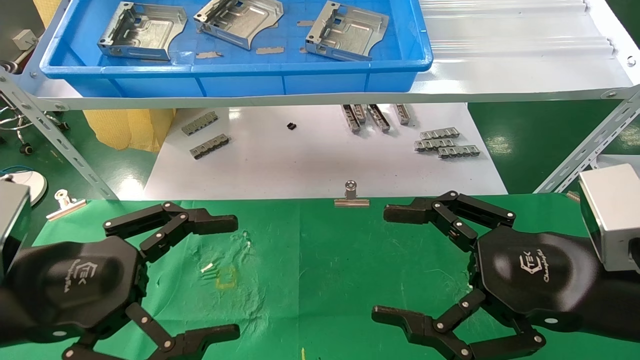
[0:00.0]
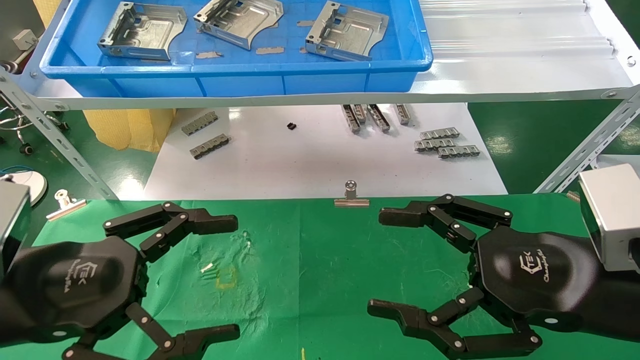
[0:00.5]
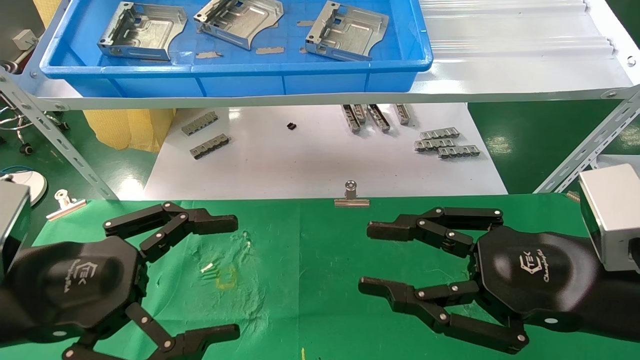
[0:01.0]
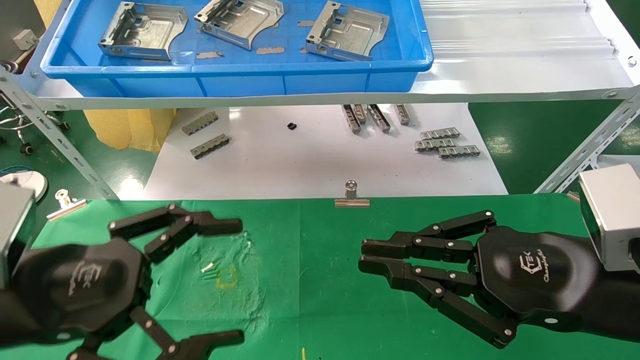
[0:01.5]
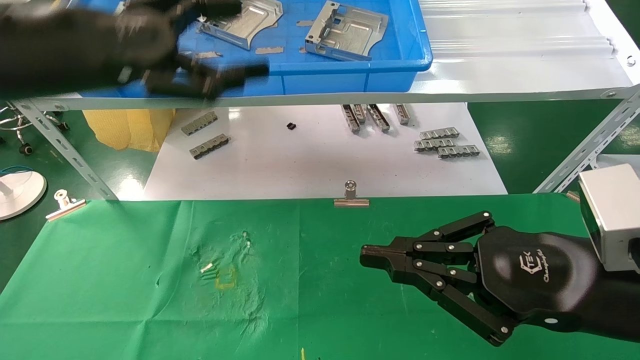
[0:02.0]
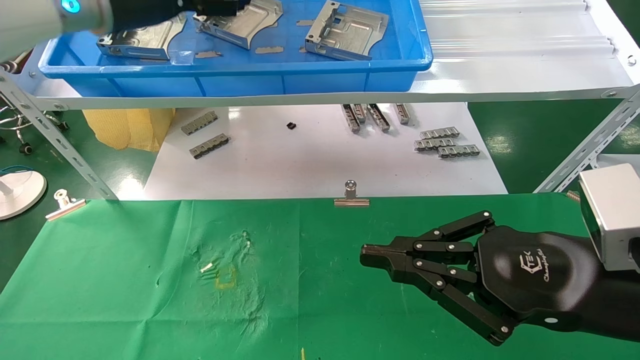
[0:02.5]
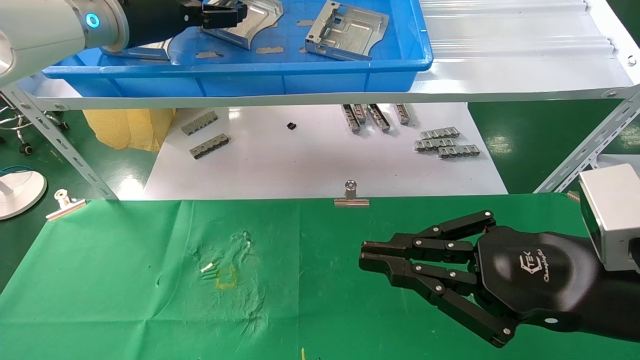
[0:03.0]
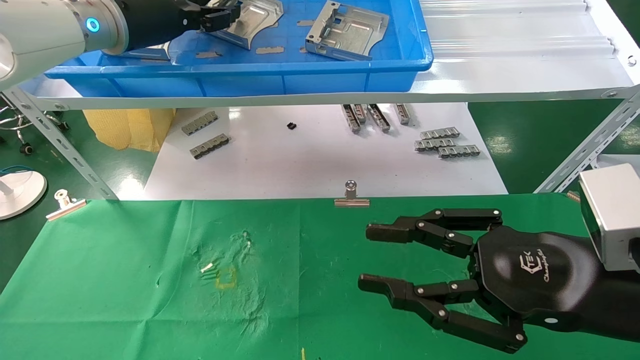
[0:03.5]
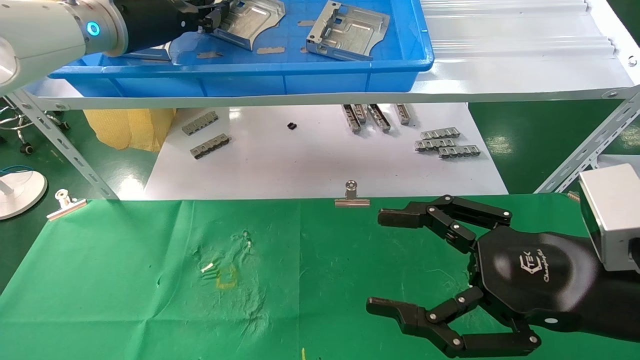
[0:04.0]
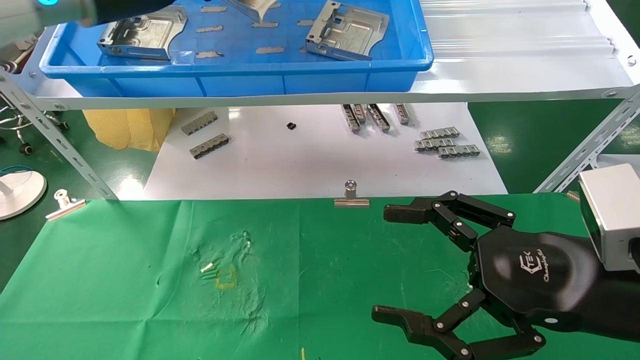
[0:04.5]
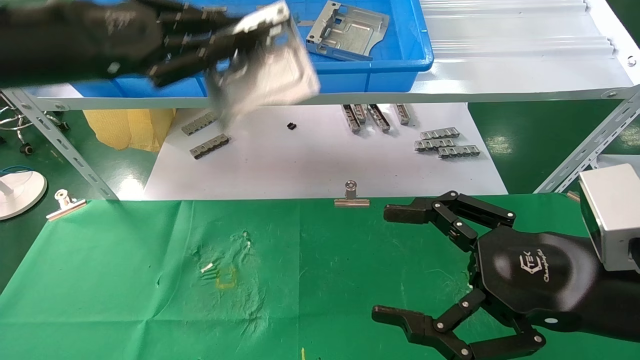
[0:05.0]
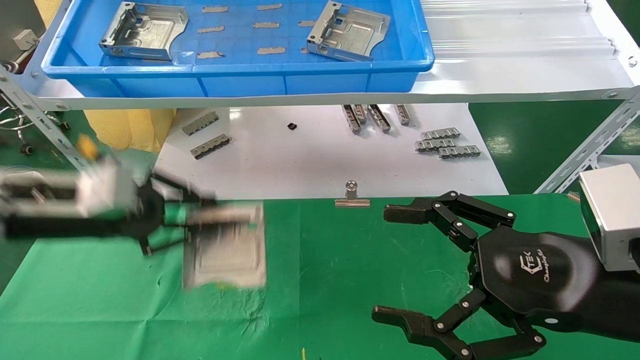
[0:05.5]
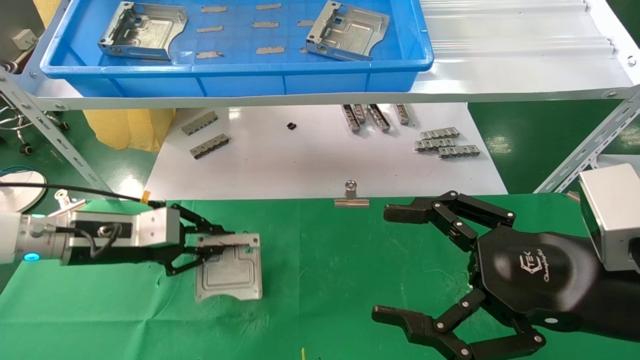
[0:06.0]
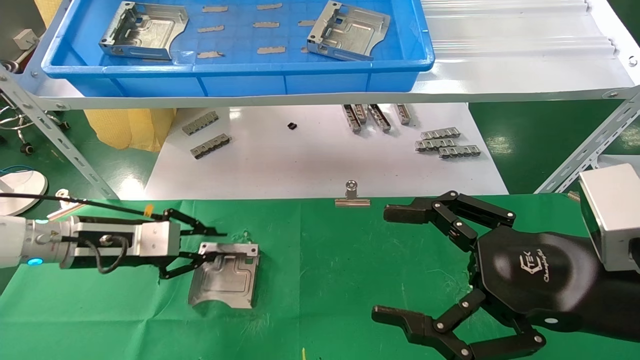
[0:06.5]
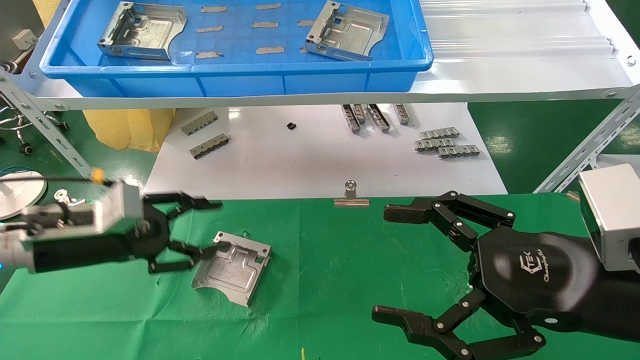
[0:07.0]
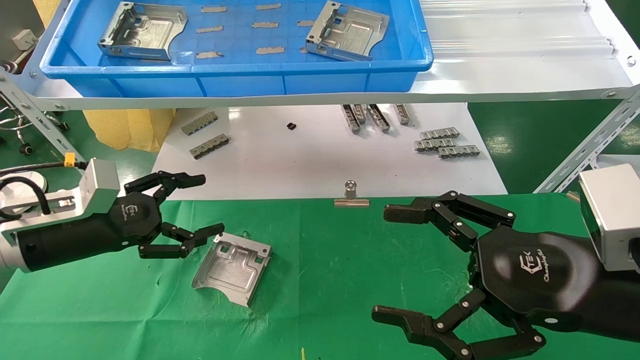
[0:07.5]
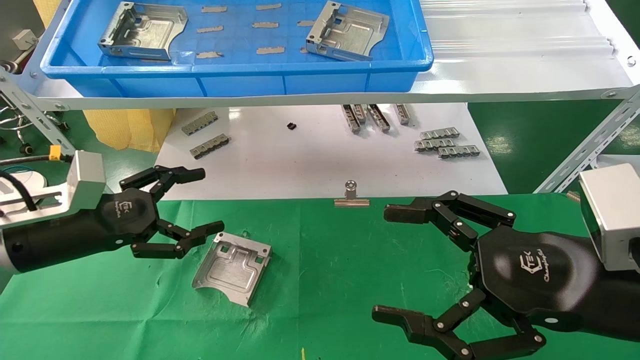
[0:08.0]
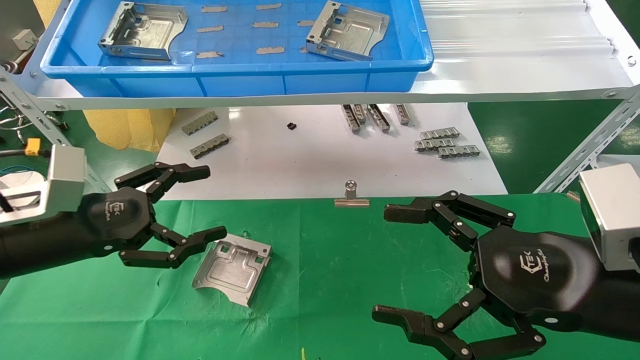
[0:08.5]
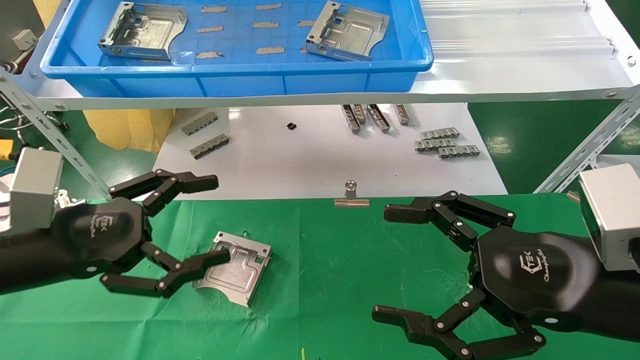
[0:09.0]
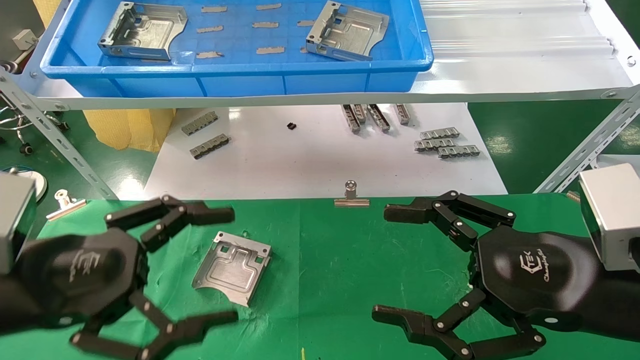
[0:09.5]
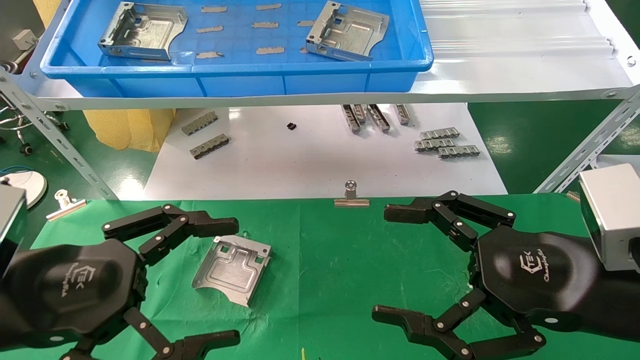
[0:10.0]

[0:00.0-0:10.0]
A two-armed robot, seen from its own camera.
Task of the whole recording: use the mechanical arm to pick up the parts and place them on the table.
Step, 0:02.0 to 0:03.5: Pick up the hard drive bracket from the feeding area.
Step, 0:04.0 to 0:07.0: Place the hard drive bracket into the box.
0:00.0 to 0:02.0: The right gripper closes its fingers. Meanwhile the left gripper heads upward and forward, covering roughly 20 cm.
0:02.0 to 0:04.0: The left gripper is displaced forward by some 15 cm, and closes its fingers. Meanwhile the right gripper opens up.
0:04.0 to 0:06.0: The left gripper shifts roughly 25 cm downward.
0:06.0 to 0:08.0: The left gripper goes roughly 5 cm backward, and opens.
0:08.0 to 0:10.0: The left gripper heads backward and to the right, covering approximately 15 cm.

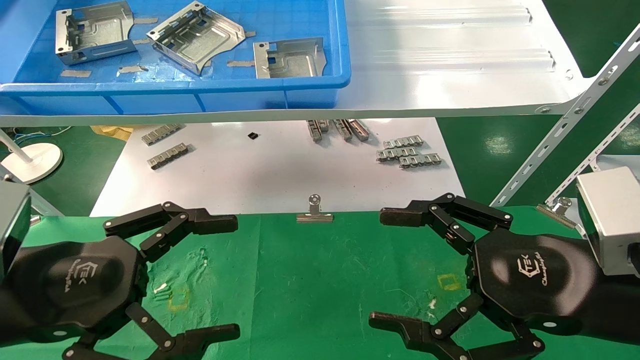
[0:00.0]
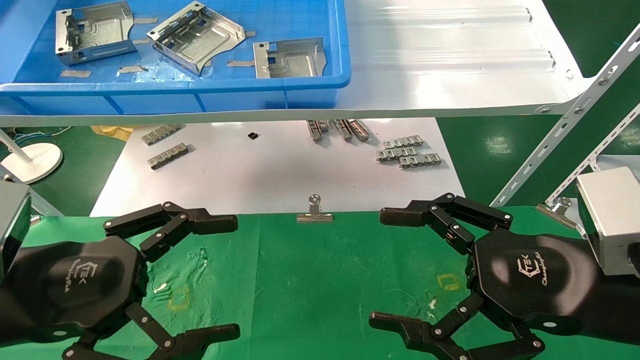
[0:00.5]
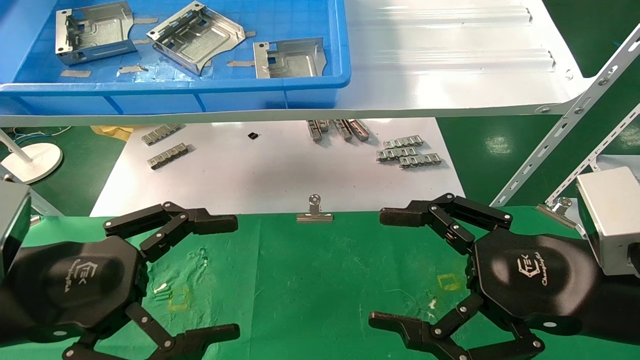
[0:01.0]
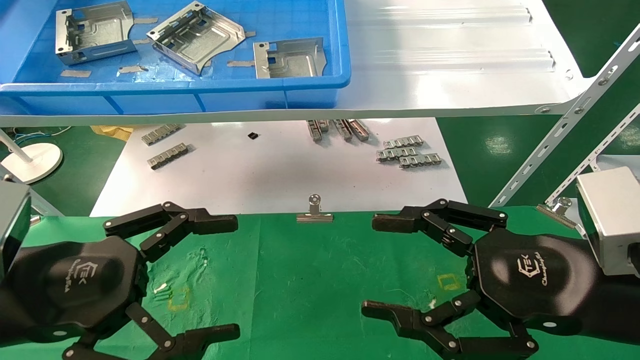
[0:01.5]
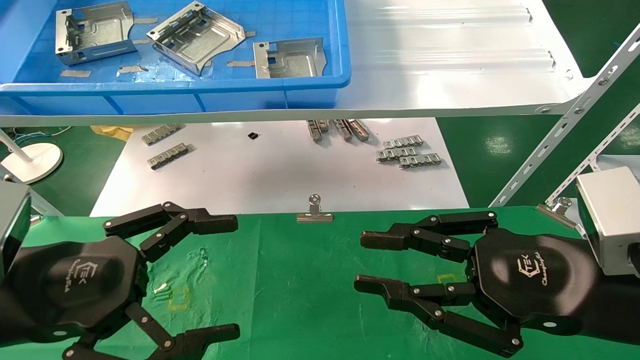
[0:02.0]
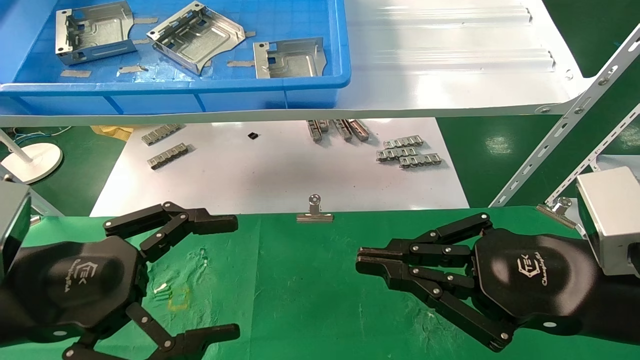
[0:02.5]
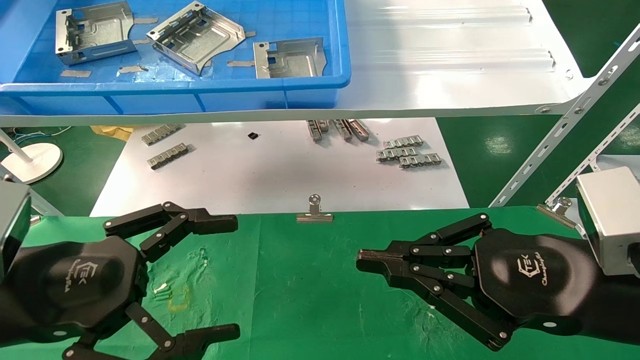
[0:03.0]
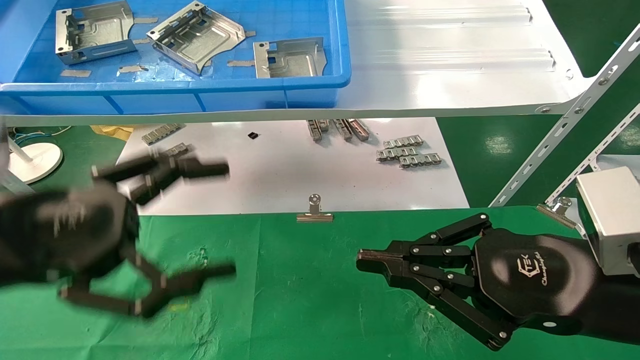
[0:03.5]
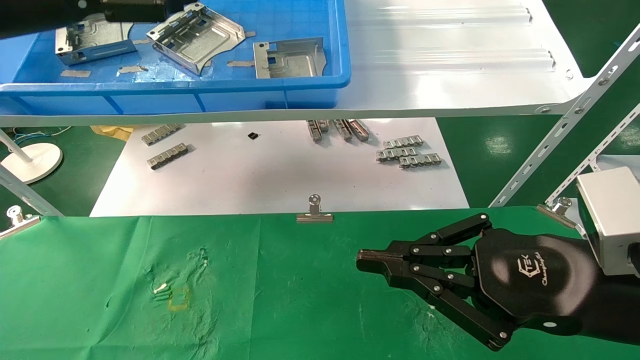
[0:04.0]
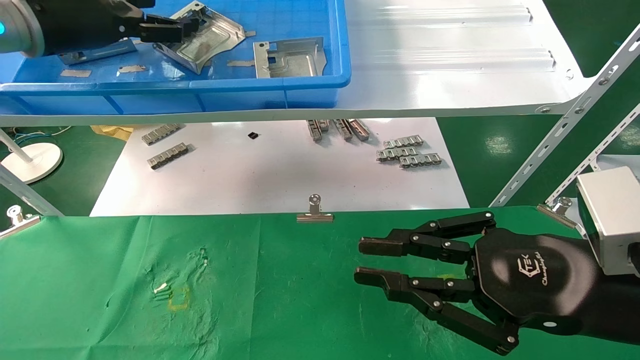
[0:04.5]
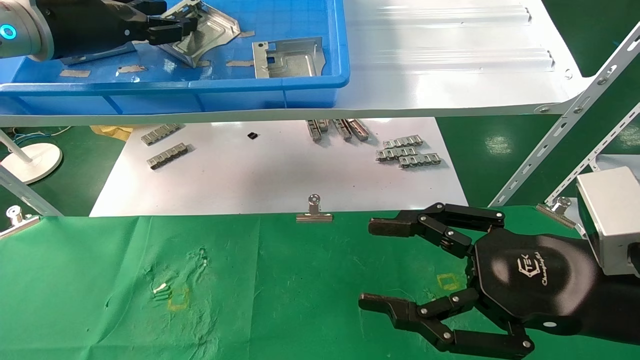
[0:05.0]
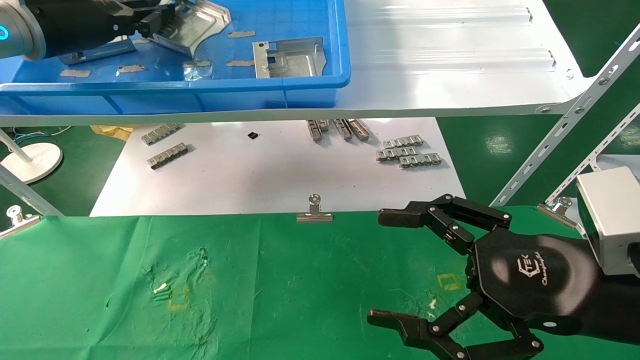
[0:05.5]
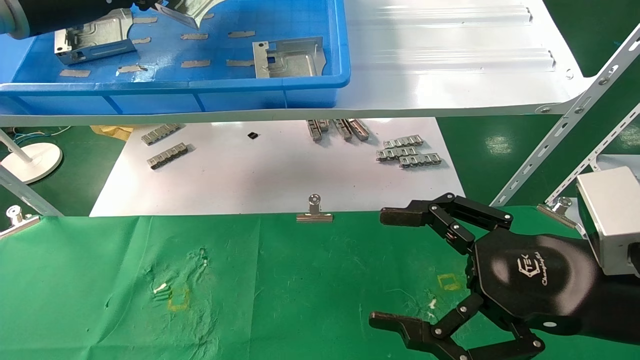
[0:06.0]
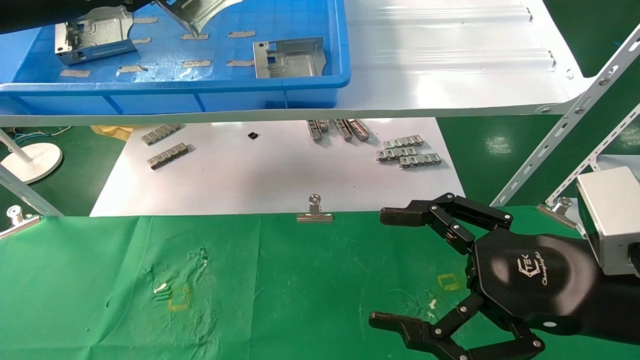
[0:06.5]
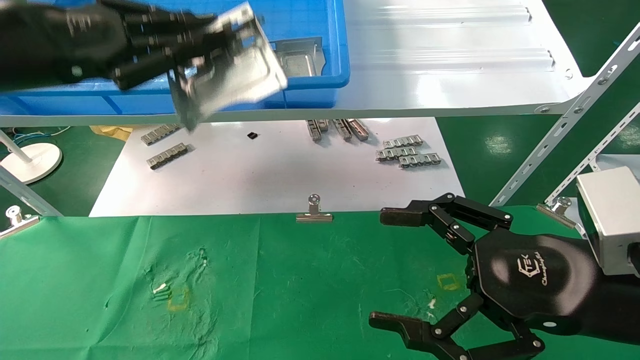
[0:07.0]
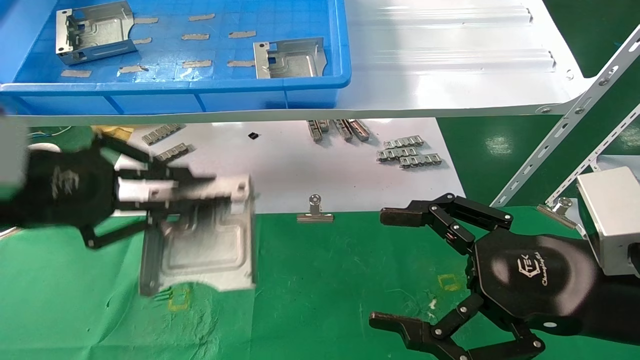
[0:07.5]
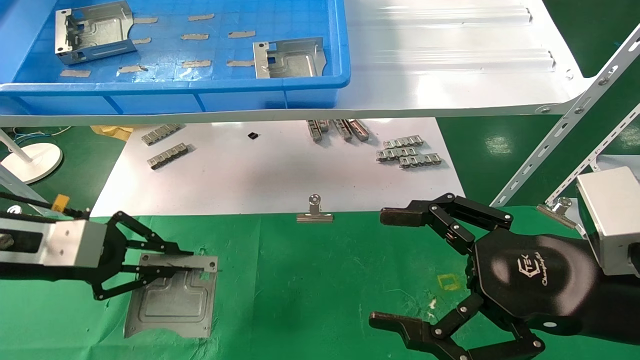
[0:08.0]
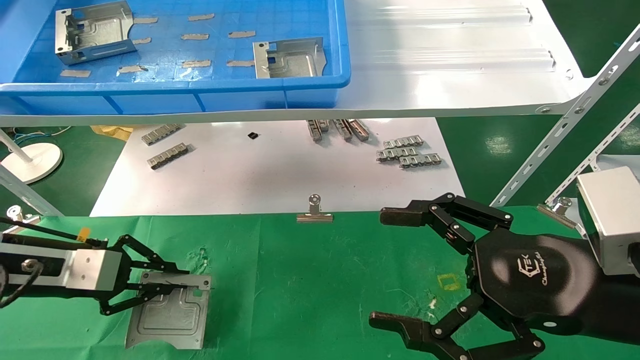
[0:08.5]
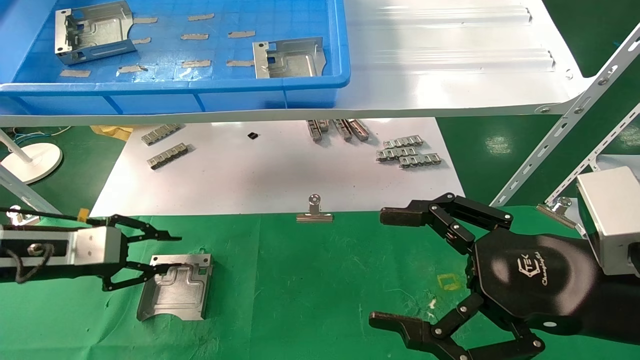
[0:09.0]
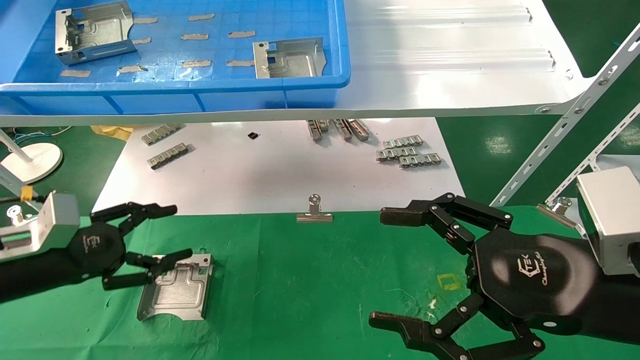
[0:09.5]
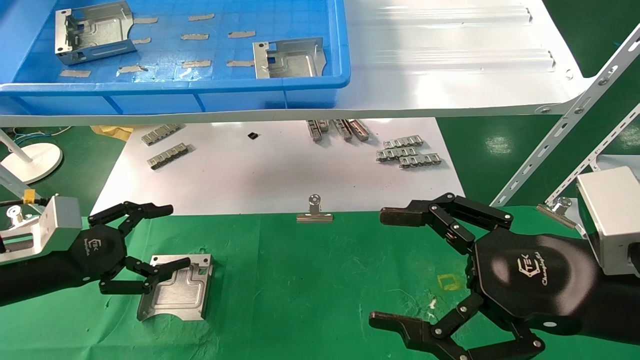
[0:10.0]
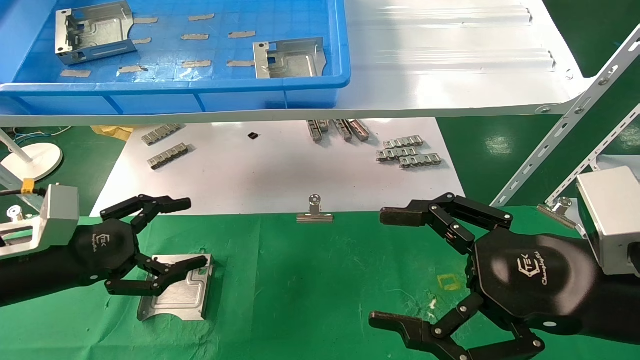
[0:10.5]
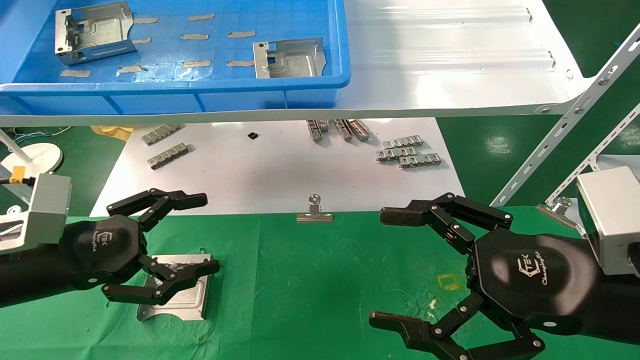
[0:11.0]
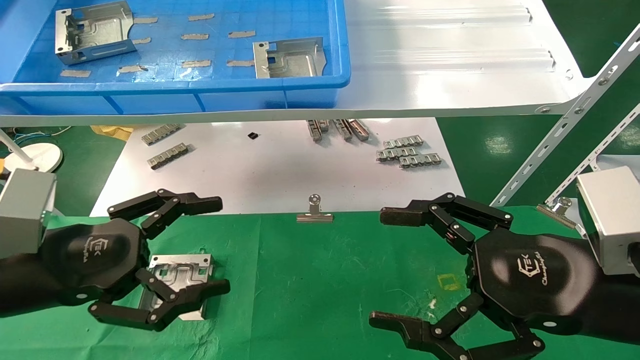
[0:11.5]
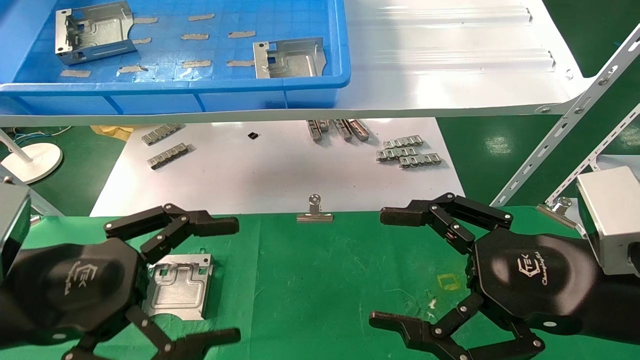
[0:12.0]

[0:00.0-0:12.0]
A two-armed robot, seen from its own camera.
Task of the whole recording: use the mechanical arm to pick up the parts and place them on the table.
Step, 0:03.5 to 0:05.5: Pick up the hard drive bracket from the feeding area.
Step, 0:06.0 to 0:09.0: Place the hard drive bracket into the box.
0:00.0 to 0:02.0: The right gripper closes.
0:02.0 to 0:04.0: The left gripper travels upward and forward by approximately 25 cm. Meanwhile the right gripper closes.
0:04.0 to 0:06.0: The left gripper shifts some 5 cm forward, and closes up. The right gripper opens up.
0:06.0 to 0:08.0: The left gripper goes approximately 25 cm downward.
0:08.0 to 0:10.0: The left gripper heads downward, covering approximately 5 cm, and opens up.
0:10.0 to 0:12.0: The left gripper shifts roughly 15 cm backward, to the right and upward.
